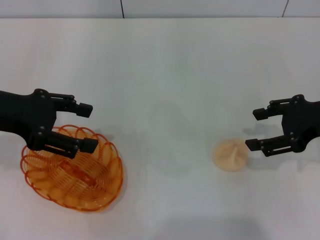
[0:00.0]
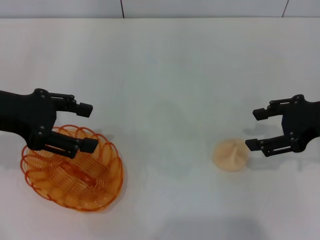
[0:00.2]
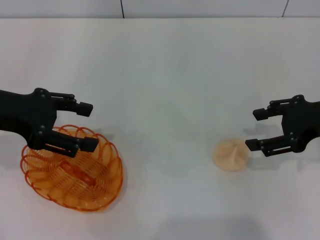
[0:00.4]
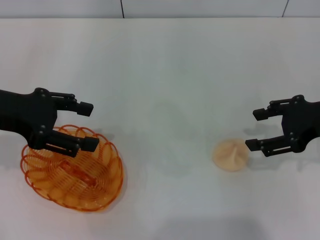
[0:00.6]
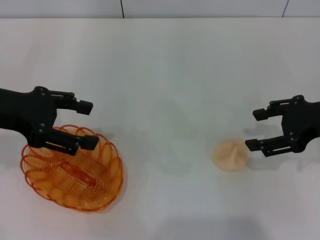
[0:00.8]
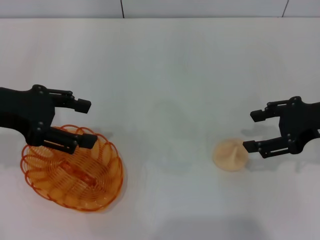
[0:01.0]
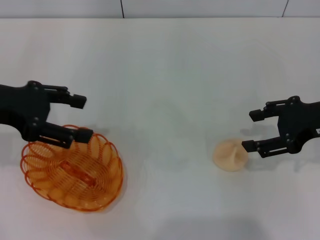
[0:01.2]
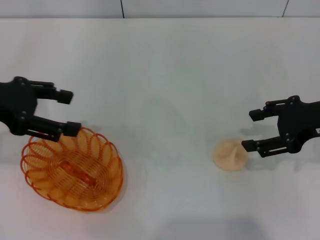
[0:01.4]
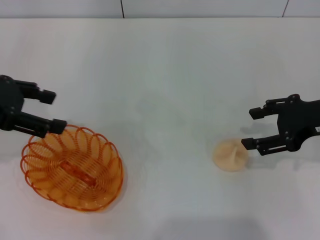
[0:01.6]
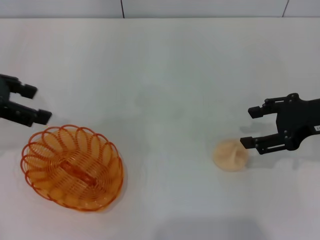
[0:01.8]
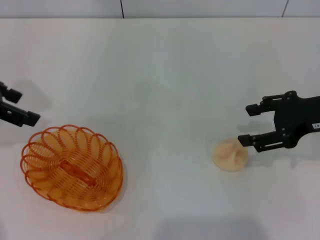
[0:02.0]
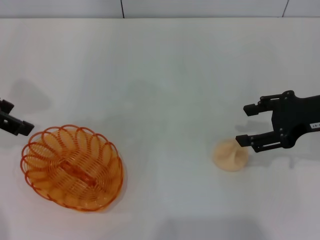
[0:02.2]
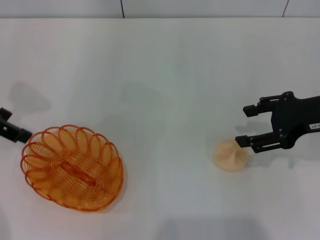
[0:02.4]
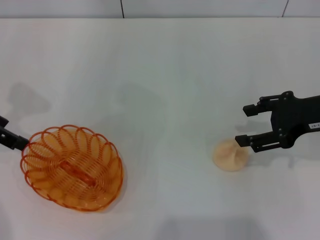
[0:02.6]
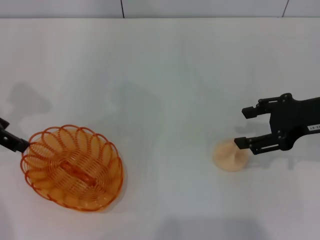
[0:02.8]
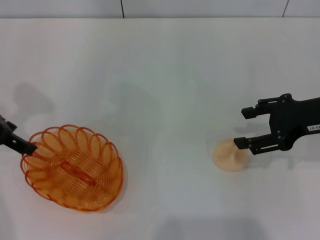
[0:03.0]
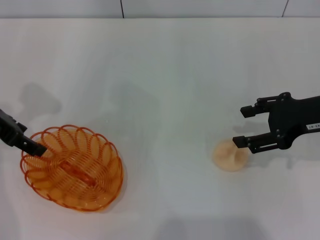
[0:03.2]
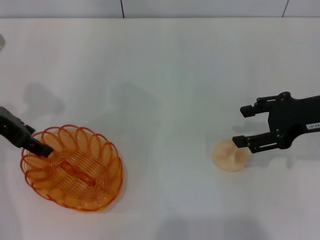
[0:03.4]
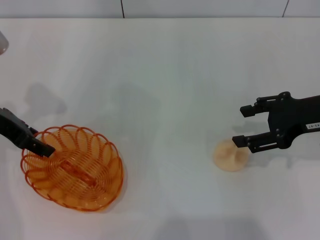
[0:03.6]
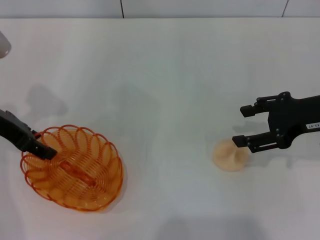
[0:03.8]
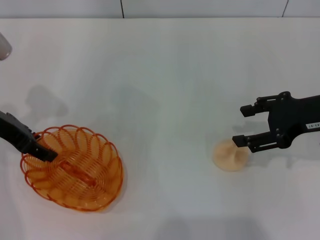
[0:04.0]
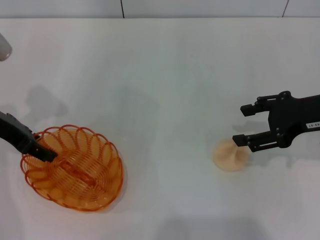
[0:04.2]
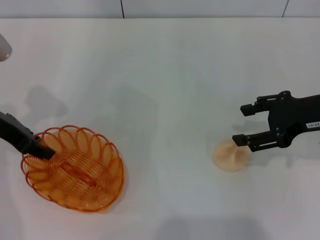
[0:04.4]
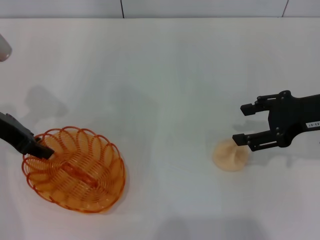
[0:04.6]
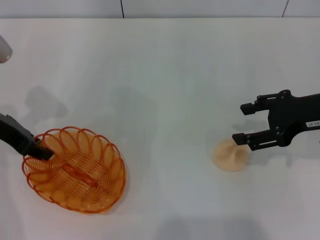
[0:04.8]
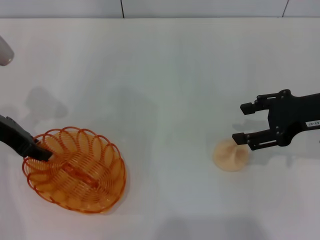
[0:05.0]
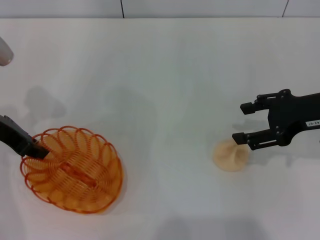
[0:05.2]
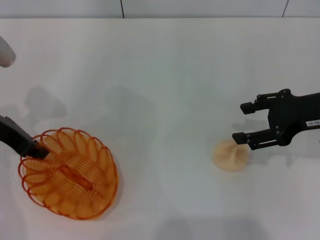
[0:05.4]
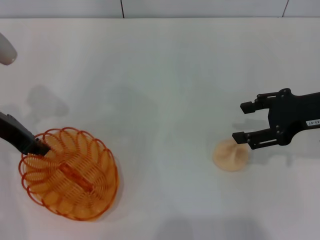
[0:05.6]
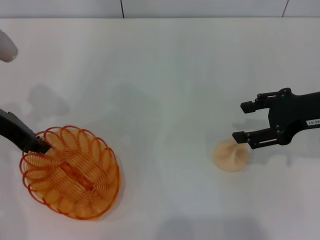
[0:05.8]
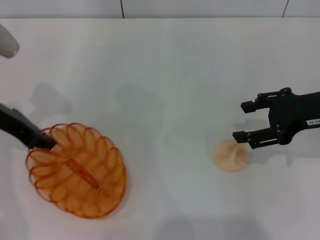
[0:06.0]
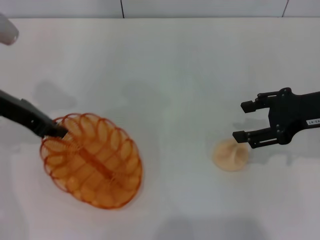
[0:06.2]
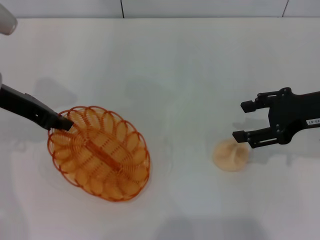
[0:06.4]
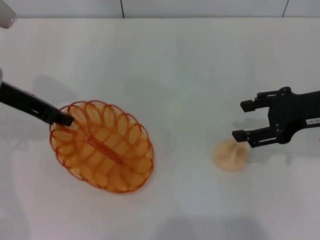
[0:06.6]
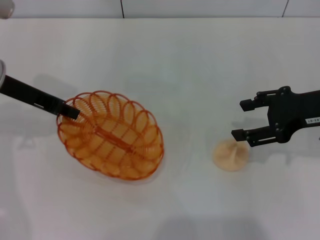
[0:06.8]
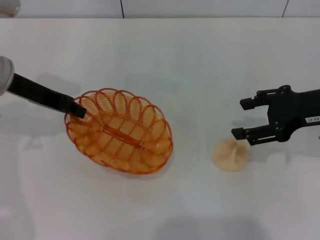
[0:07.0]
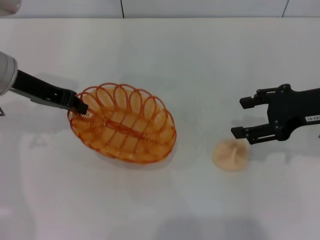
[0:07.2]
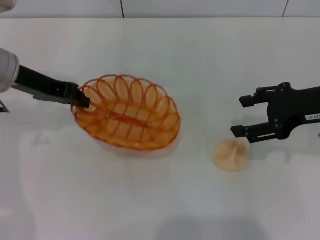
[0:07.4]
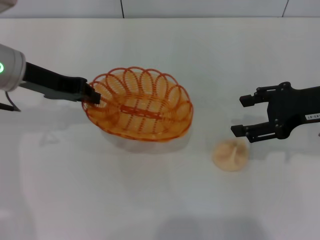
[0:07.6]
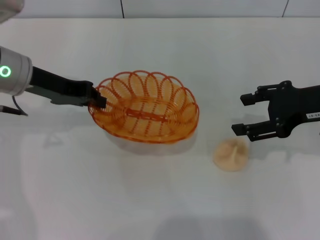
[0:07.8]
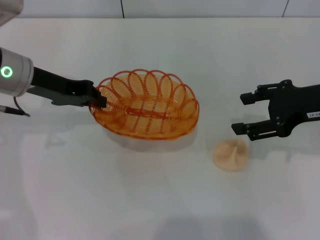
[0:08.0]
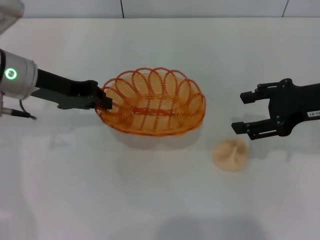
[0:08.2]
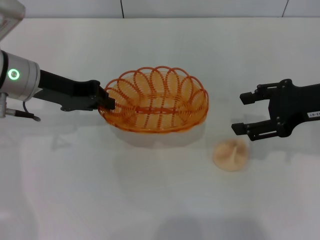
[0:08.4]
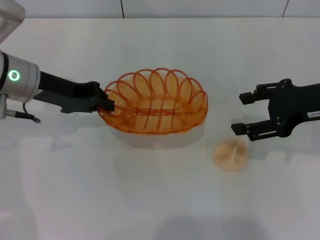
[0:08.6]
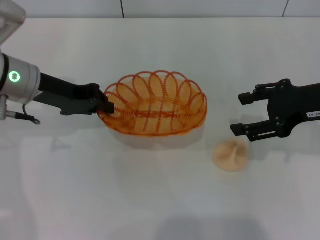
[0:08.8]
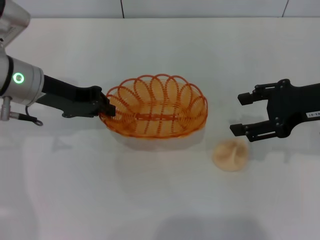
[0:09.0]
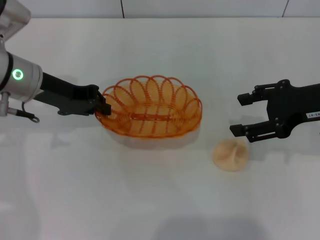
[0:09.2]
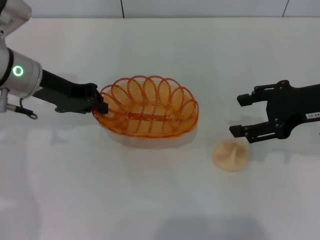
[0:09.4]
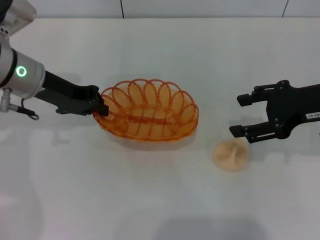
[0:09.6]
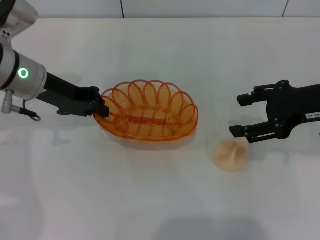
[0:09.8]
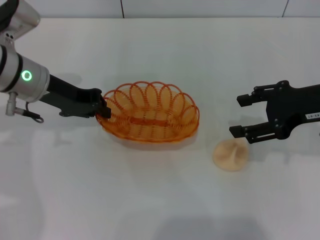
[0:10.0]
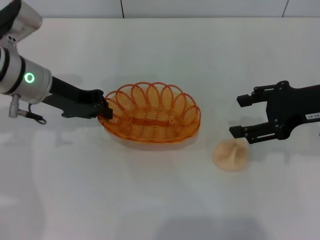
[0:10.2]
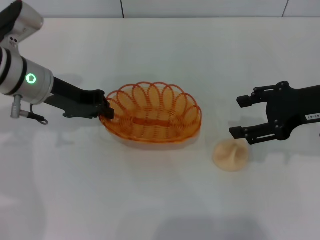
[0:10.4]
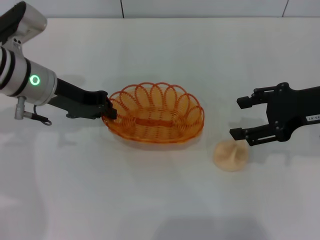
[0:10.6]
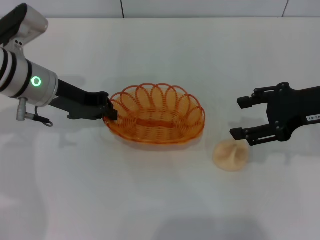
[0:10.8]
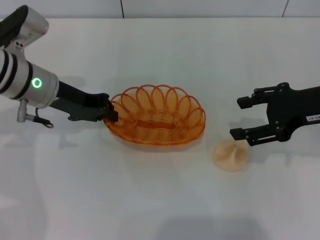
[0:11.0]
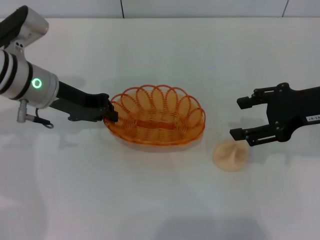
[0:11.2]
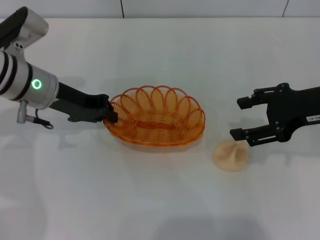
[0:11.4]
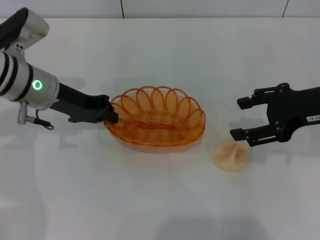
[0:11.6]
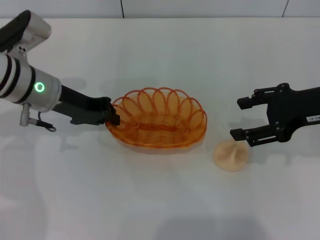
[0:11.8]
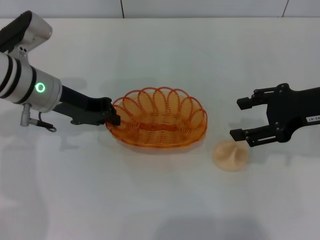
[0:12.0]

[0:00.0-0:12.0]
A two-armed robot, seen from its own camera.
Step, 0:00.0 to 0:07.0: Pick up the basket with the left gripper.
0:00.0 to 0:01.6: The grippers move only a little.
0:03.0 to 0:04.4: The grippers move only a little.
0:04.4 to 0:06.0: The left gripper closes up.
0:07.6 to 0:10.4: The grippers stay close to where they were, moving slightly.
0:10.4 to 0:12.0: There are only small adjustments of the grippers.

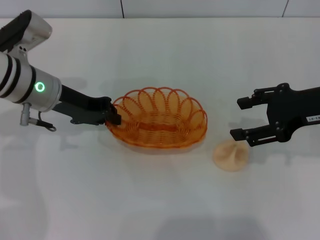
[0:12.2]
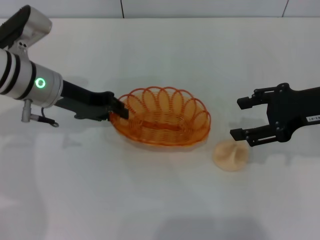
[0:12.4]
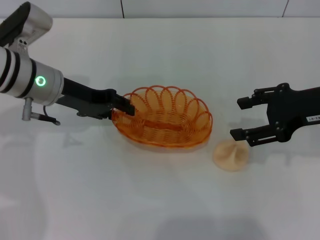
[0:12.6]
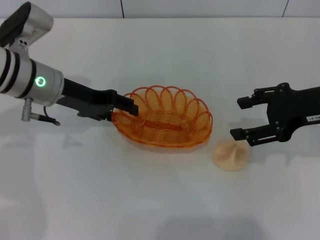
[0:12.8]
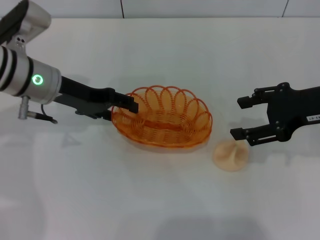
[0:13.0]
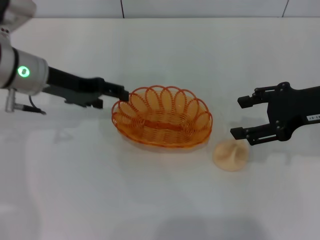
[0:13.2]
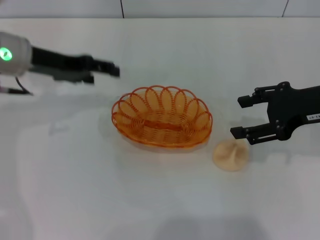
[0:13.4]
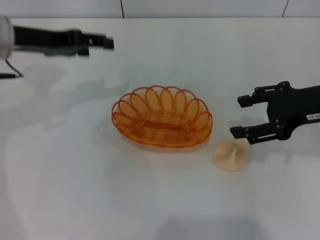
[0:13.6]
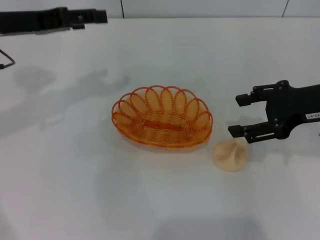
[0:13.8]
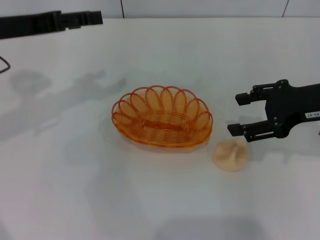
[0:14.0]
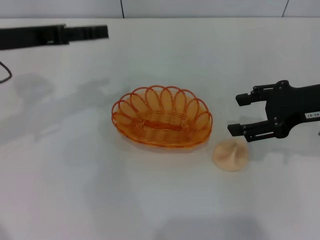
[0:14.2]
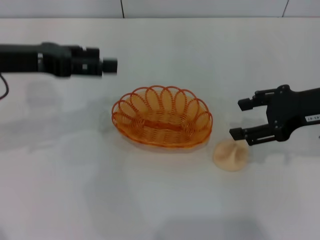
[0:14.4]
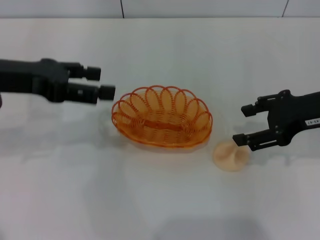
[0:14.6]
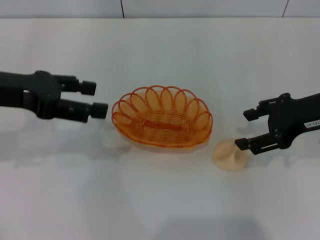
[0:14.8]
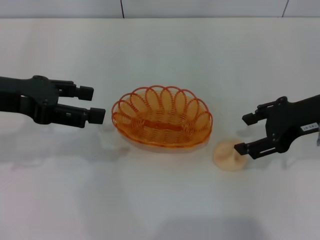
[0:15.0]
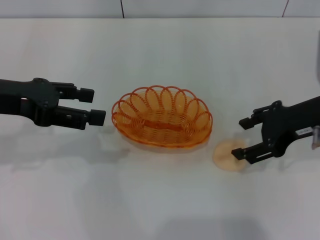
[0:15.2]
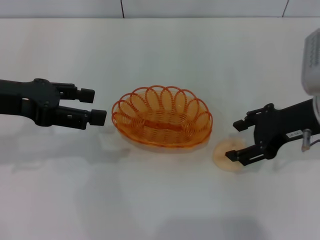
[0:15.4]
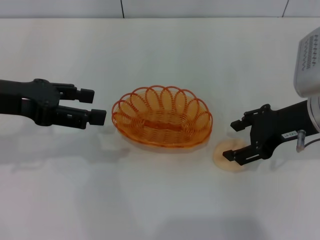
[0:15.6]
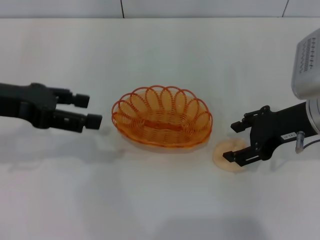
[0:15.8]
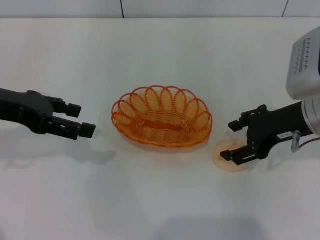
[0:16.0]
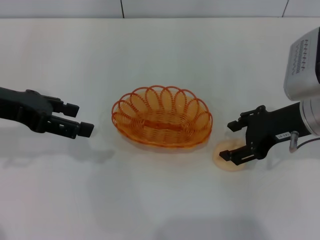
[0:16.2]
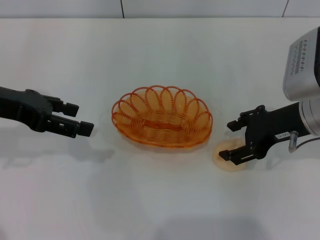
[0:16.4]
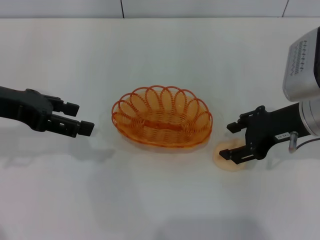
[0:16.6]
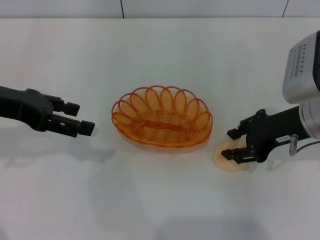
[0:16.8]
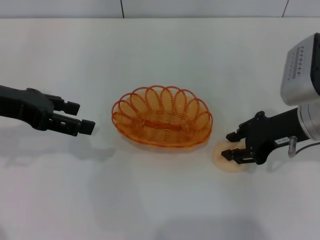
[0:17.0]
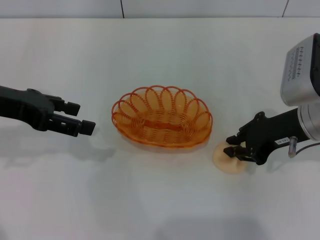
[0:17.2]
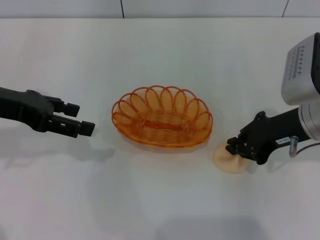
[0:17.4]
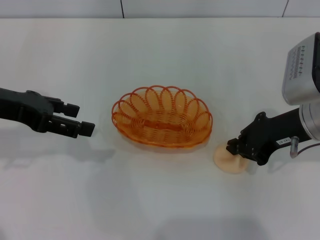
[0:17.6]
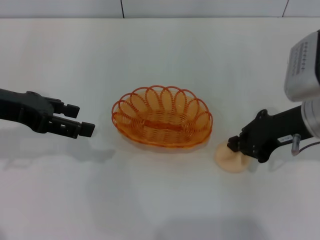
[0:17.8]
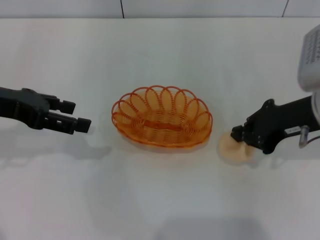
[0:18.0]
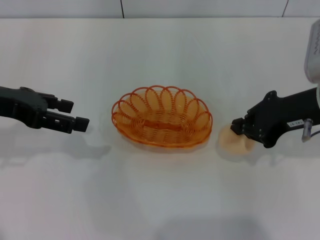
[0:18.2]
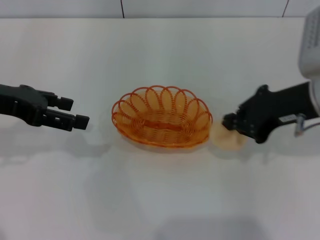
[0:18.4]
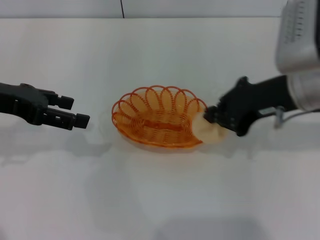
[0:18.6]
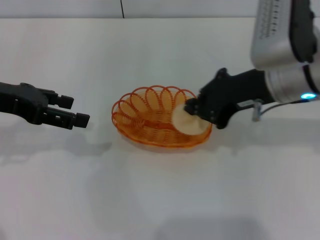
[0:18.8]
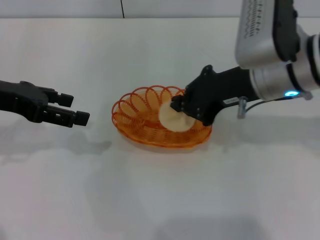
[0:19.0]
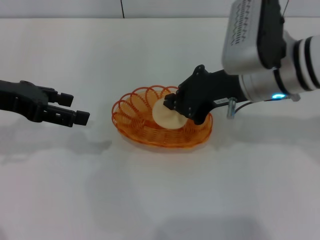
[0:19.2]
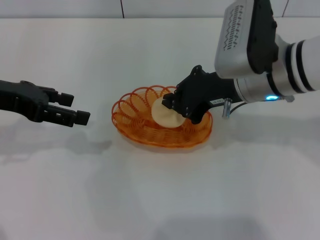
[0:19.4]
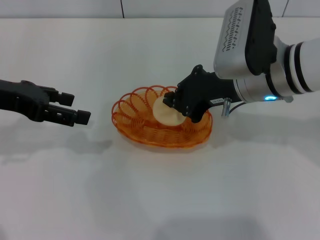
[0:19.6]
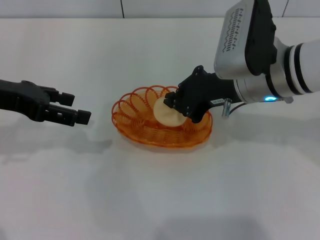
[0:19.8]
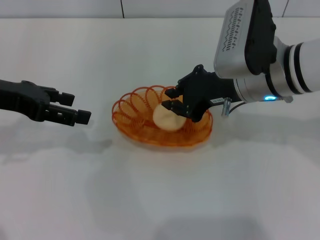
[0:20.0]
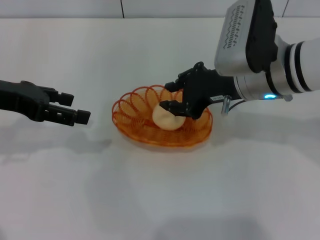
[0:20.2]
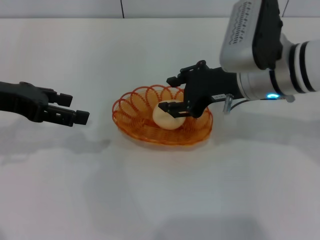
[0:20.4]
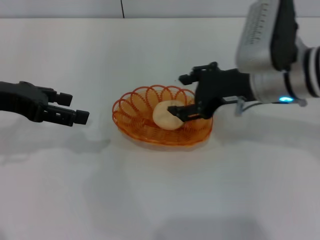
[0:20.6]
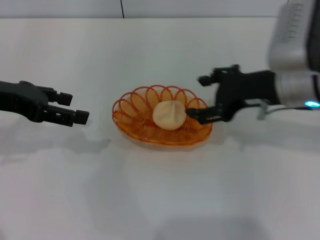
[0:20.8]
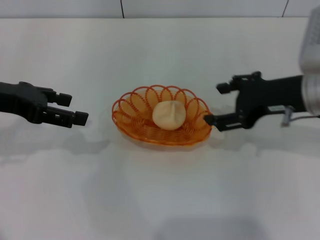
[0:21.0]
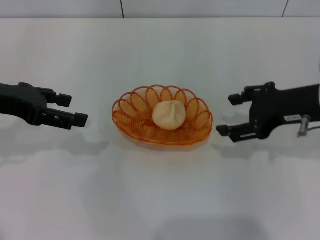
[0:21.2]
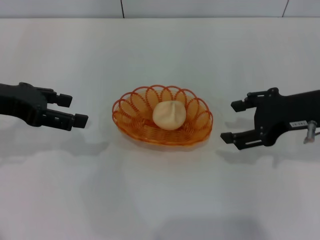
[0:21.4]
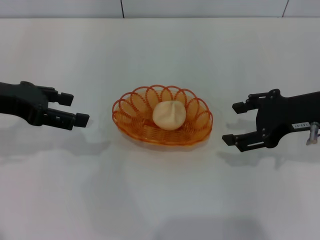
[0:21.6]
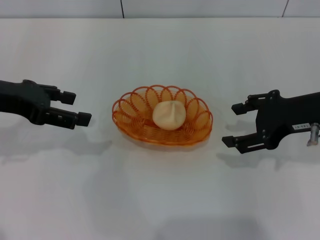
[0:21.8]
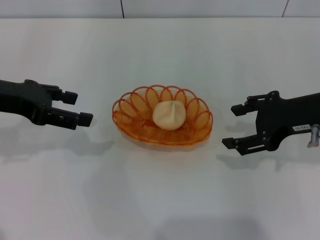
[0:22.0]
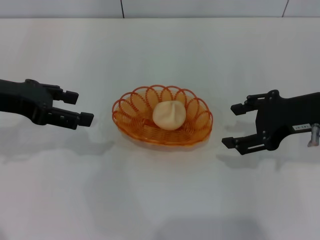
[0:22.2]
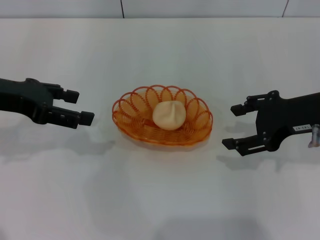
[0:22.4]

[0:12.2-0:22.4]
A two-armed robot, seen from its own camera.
Step, 0:13.8 to 0:18.2: Pick up the egg yolk pastry with the right gripper.
Step, 0:18.4 to 0:21.0: Place the egg yolk pastry into the basket with the right gripper.
0:12.2 to 0:13.6: The left gripper shifts about 10 cm upward, and opens its fingers.
0:13.6 to 0:15.2: The left gripper heads backward, covering roughly 10 cm.
0:15.2 to 0:16.6: There are only small adjustments of the grippers.
0:16.6 to 0:18.0: The right gripper closes.
0:18.0 to 0:19.4: The right gripper goes approximately 10 cm to the left.
0:19.4 to 0:21.0: The right gripper goes roughly 10 cm to the right, and opens its fingers.
0:21.0 to 0:22.4: The grippers move only a little.
